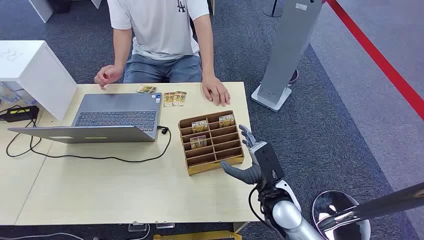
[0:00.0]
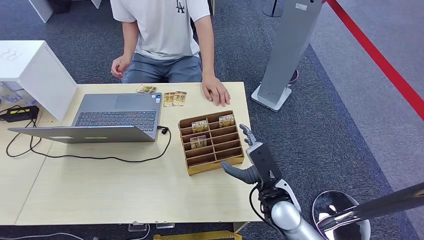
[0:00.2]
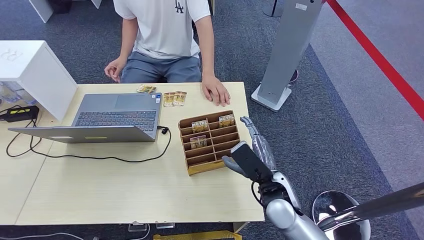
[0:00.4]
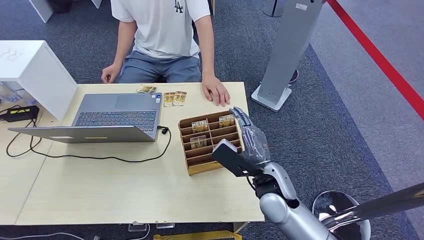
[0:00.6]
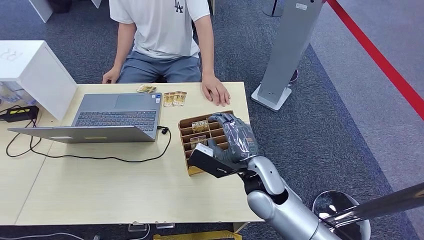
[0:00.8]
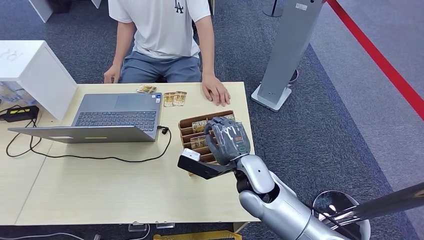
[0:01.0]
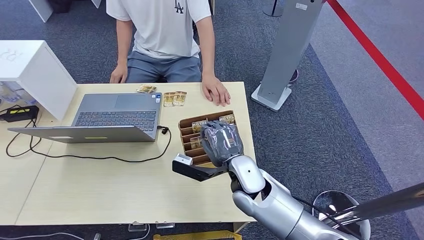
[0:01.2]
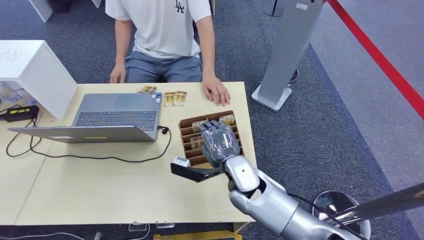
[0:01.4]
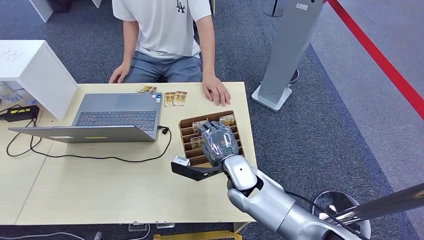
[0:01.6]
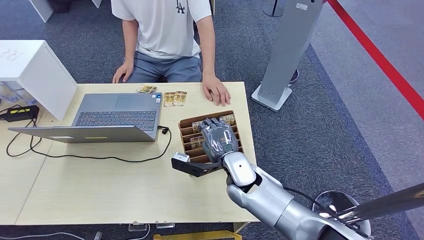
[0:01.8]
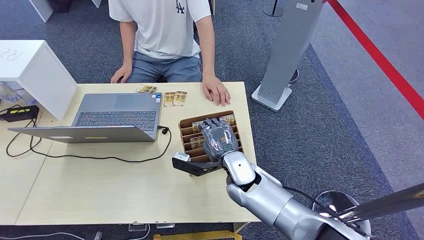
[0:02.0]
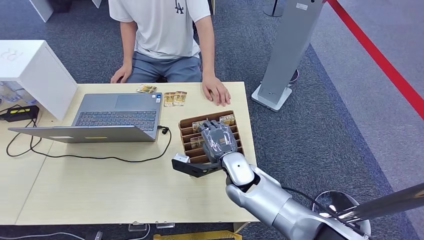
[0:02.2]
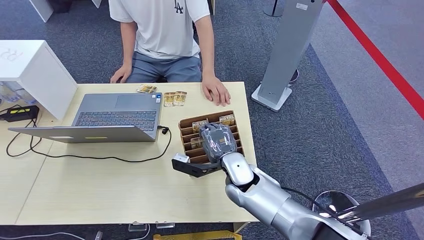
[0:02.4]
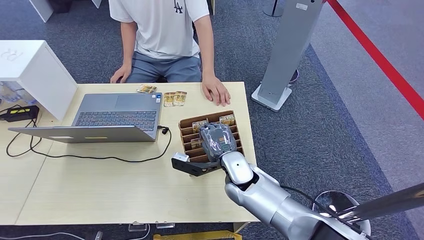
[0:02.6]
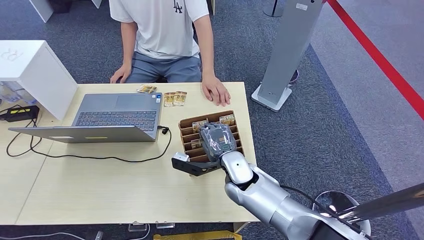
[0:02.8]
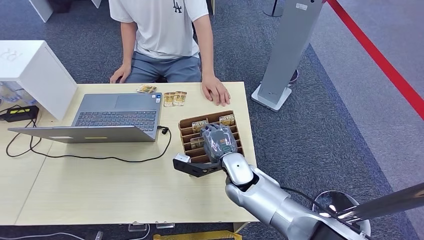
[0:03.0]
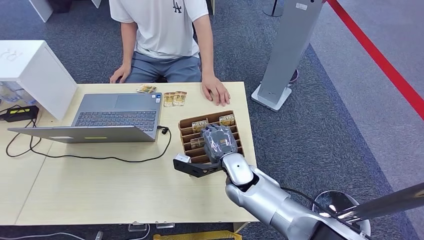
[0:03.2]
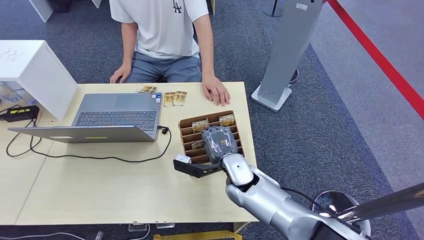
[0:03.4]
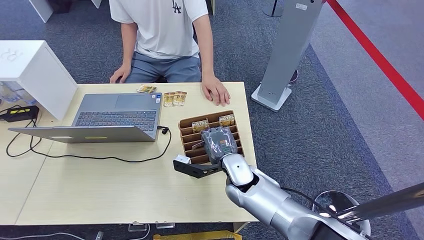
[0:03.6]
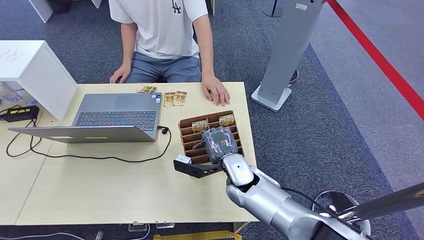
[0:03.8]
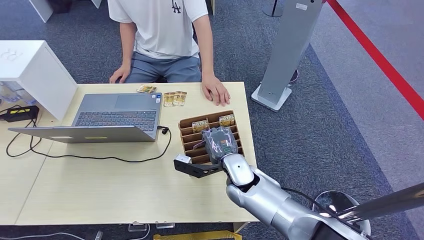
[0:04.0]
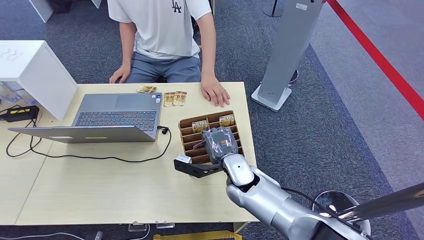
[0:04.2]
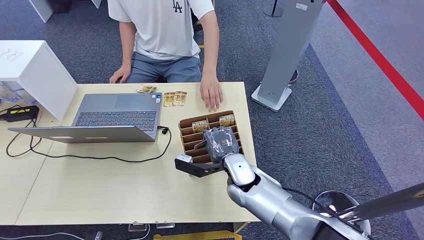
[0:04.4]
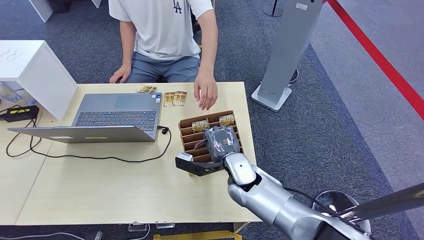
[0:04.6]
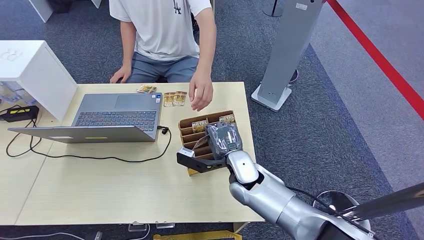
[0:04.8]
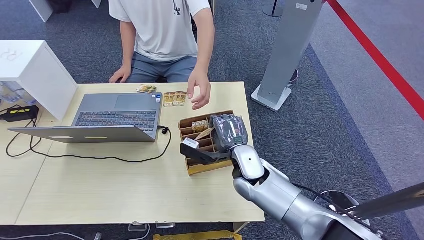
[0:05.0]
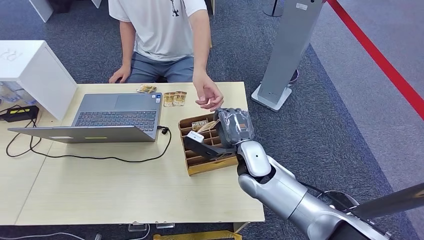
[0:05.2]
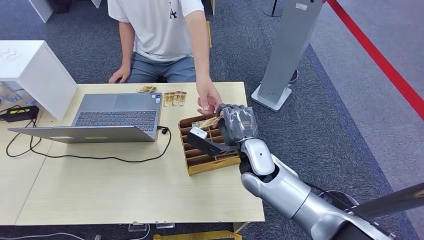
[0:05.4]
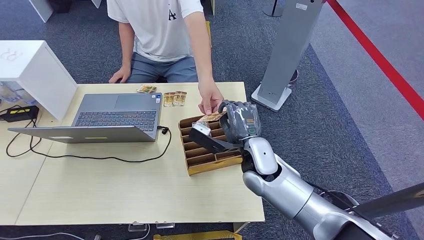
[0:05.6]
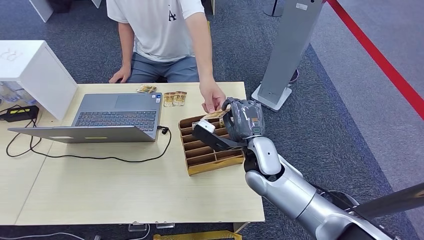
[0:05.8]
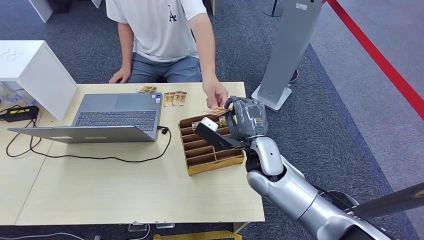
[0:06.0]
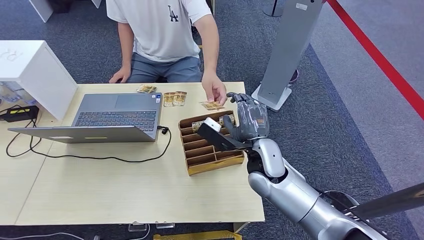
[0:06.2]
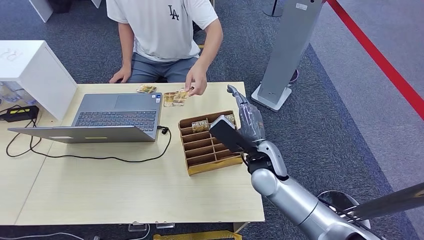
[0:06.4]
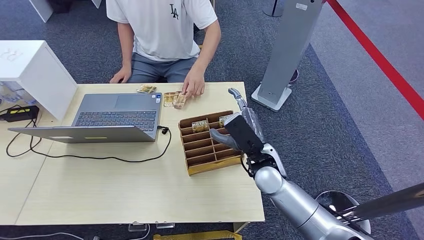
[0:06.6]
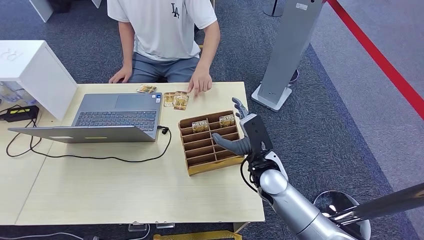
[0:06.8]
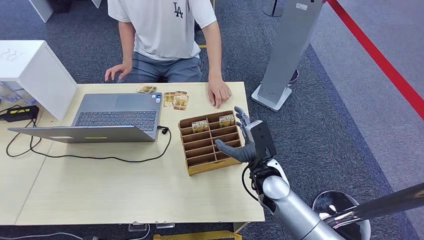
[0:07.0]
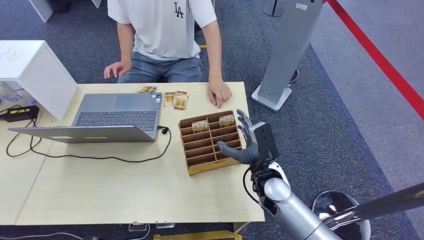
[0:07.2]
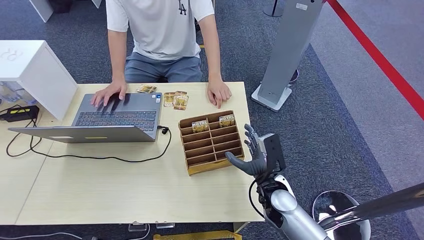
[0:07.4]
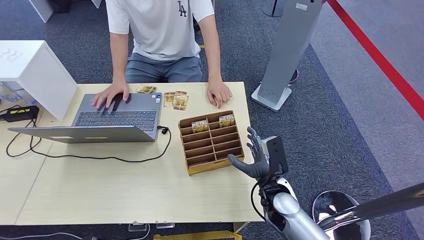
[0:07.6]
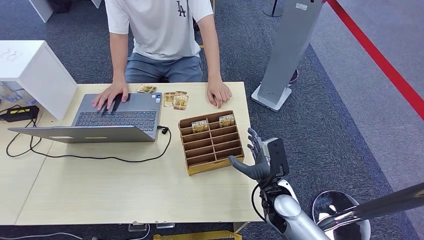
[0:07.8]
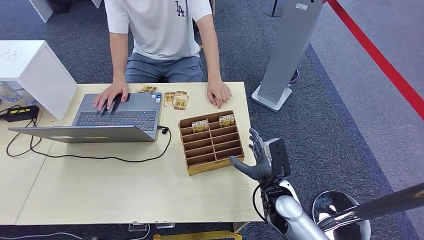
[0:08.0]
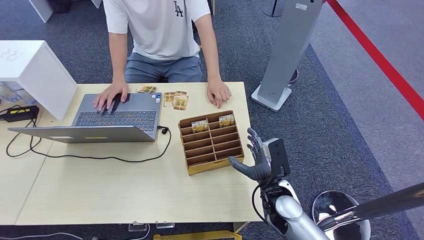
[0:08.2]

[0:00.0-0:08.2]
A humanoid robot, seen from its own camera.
Step, 0:00.0 to 0:04.8: Pick up the room card from the card holder.
Step, 0:05.0 to 0:08.2: Hand the room card to the target.
0:01.6 to 0:05.0: The hands make only small movements.
0:05.0 to 0:06.6: The right hand shifts some 5 cm to the right.
0:06.6 to 0:08.2: The right hand is displaced downward and backward by about 10 cm.
